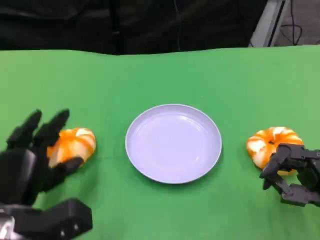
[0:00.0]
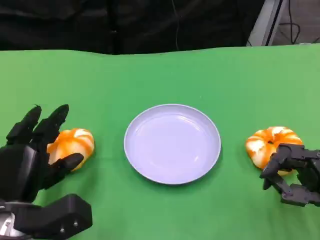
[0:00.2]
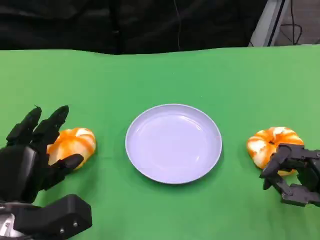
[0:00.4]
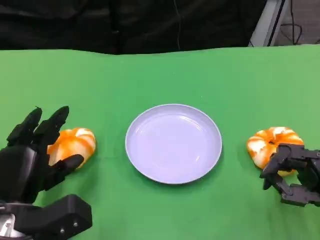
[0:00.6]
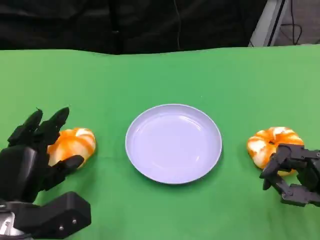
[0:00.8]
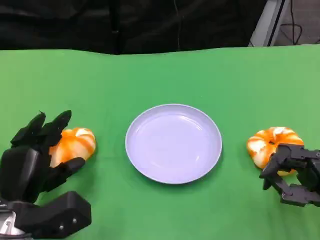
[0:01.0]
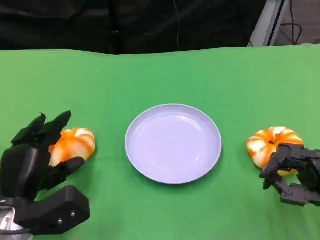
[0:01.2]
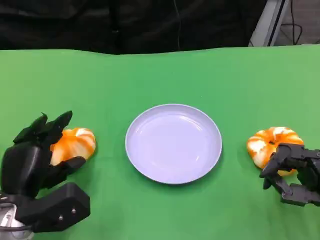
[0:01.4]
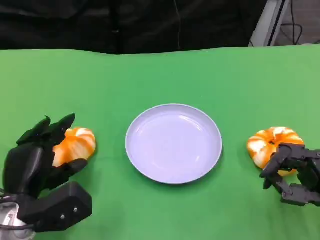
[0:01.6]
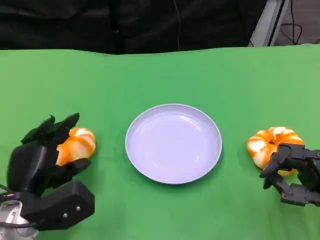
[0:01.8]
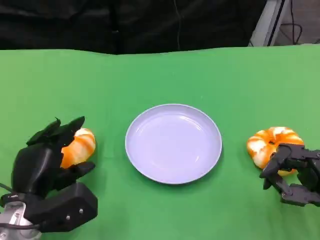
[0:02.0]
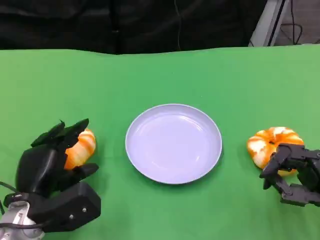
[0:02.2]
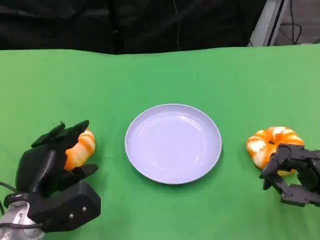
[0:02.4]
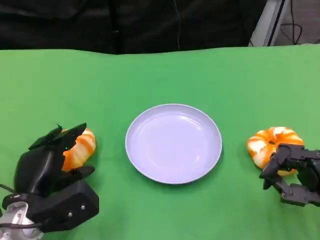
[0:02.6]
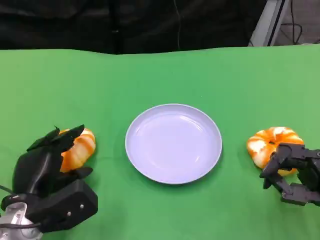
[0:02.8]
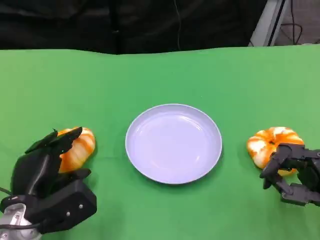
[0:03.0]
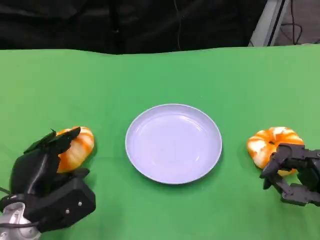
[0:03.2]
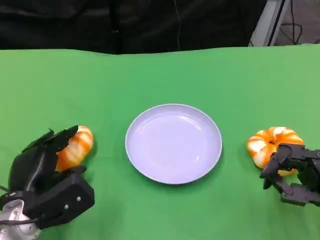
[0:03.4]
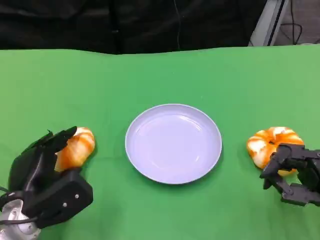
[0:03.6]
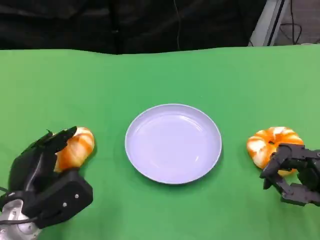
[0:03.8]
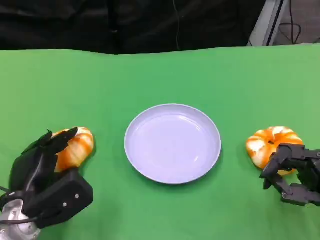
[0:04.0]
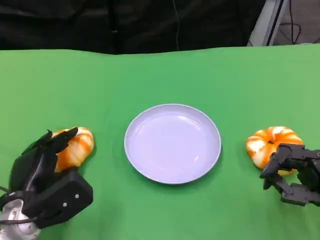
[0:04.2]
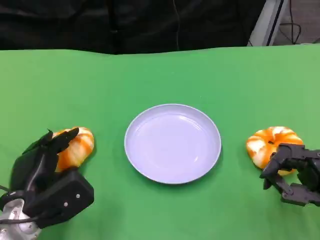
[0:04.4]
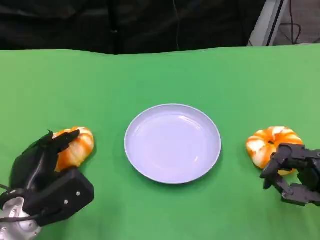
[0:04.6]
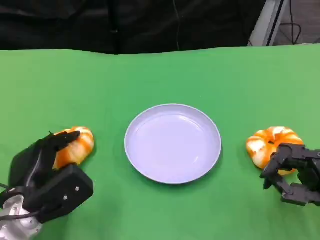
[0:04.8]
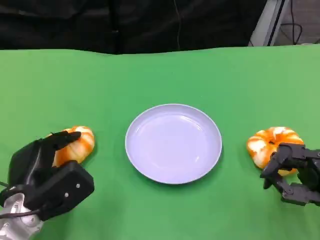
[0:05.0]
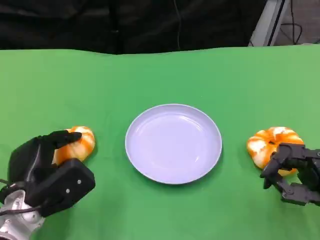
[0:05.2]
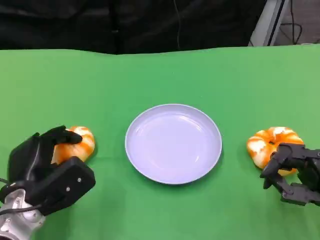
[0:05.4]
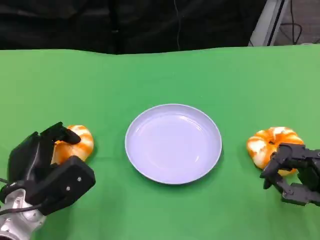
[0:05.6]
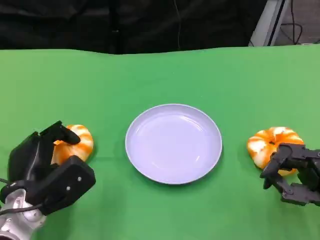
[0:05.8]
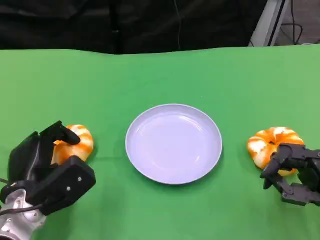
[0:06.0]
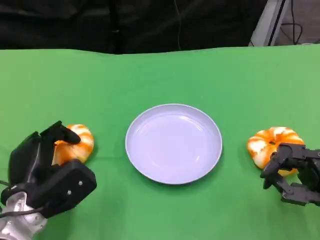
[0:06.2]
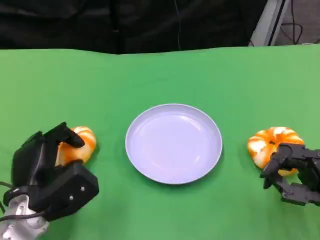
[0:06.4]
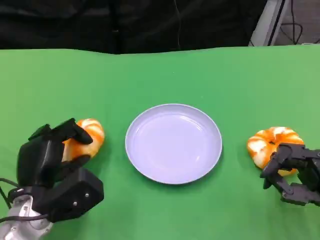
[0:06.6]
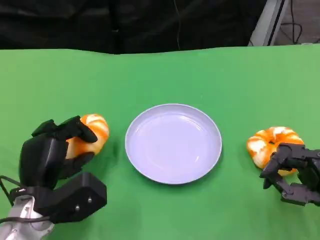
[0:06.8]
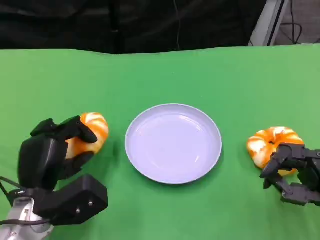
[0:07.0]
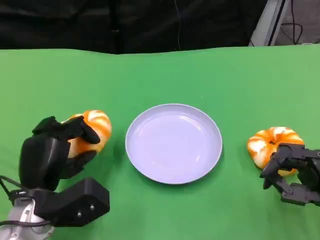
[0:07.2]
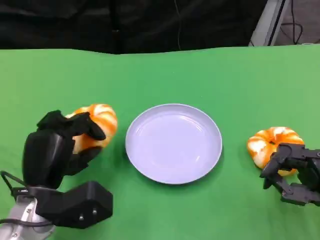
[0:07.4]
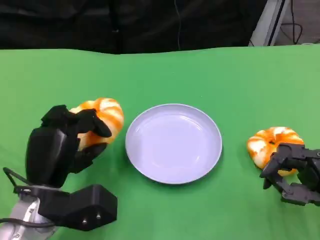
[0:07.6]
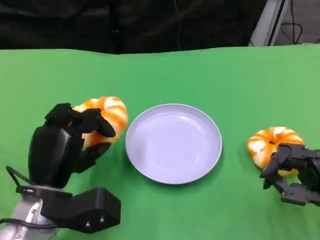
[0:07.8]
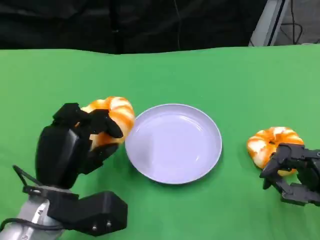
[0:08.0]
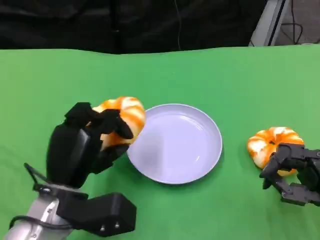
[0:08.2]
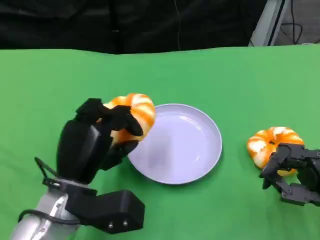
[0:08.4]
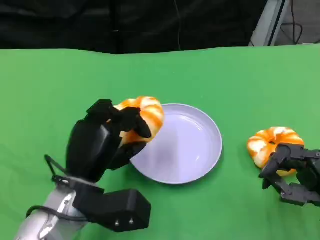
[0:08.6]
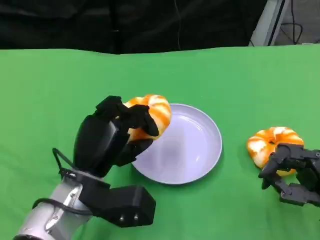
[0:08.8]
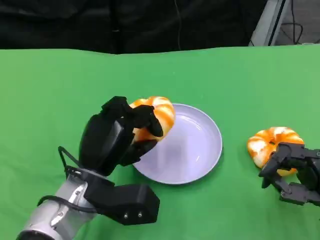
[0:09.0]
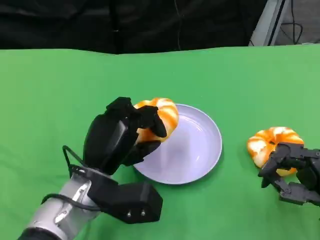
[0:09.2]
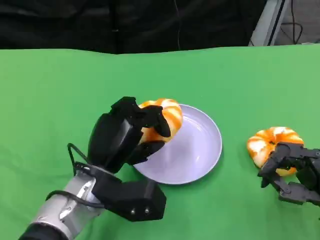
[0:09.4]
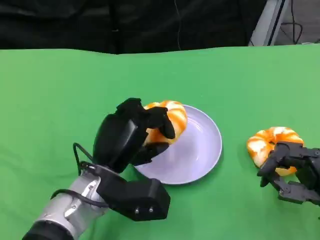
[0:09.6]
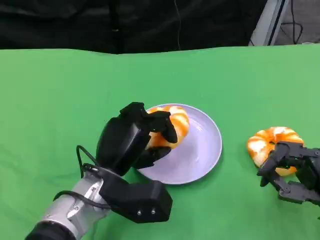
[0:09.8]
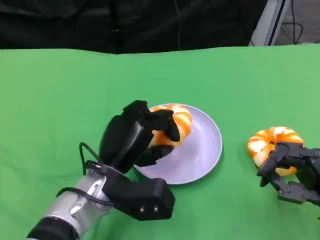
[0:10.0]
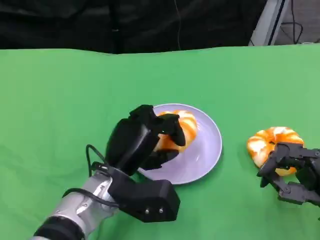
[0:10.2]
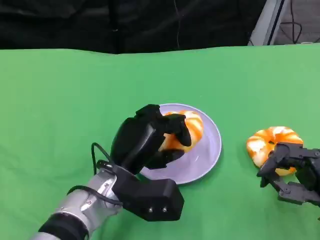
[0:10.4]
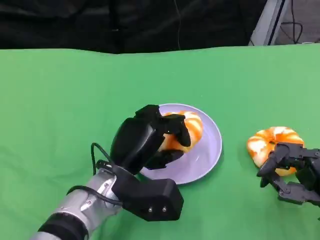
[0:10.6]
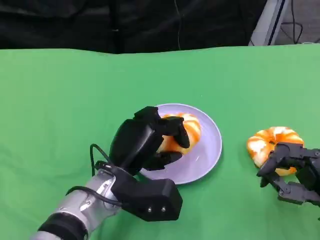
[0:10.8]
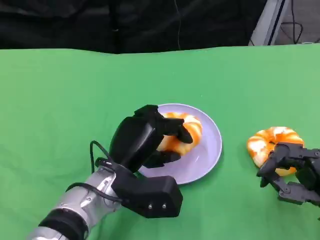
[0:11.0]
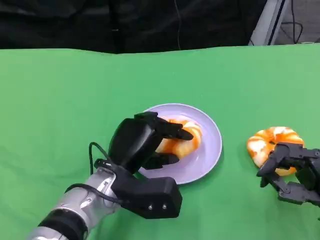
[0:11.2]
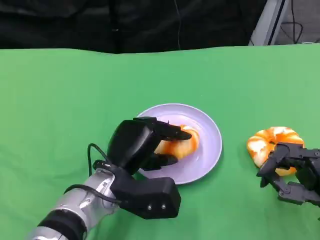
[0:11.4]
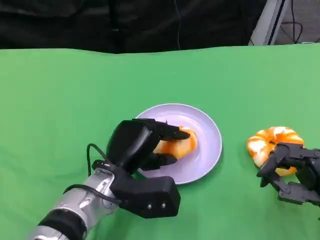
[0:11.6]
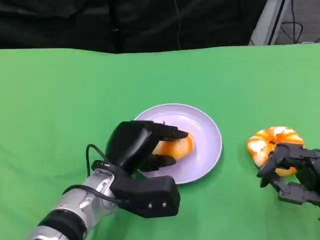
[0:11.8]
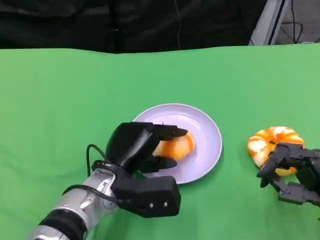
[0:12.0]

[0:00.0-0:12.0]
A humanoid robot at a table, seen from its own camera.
Task of the whole recording: Grasp the bread from the table and place it into the plate.
0:00.0 to 0:03.0: The hands stay close to where they were, moving slightly.
0:03.0 to 0:04.4: The two hands keep their place.
0:04.4 to 0:06.0: The hands move only a little.
0:06.0 to 0:07.6: The left hand shifts by roughly 5 cm.
0:07.6 to 0:09.0: The left hand goes approximately 5 cm to the right.
0:09.0 to 0:12.0: The hands make only small movements.

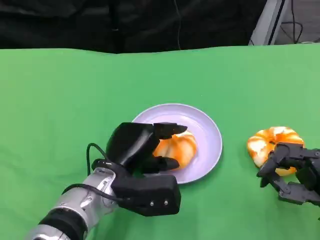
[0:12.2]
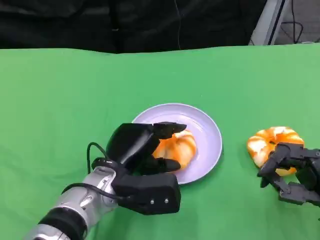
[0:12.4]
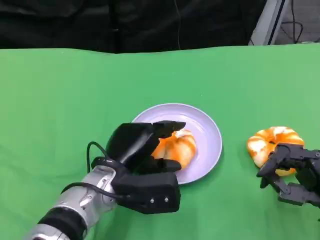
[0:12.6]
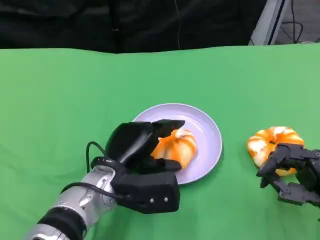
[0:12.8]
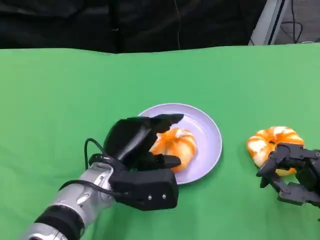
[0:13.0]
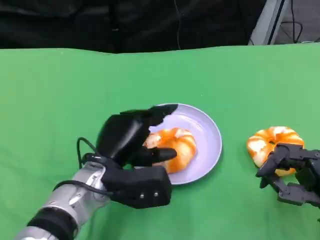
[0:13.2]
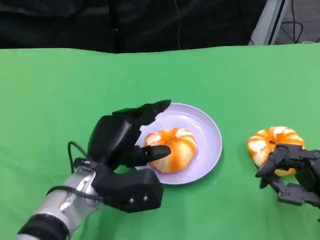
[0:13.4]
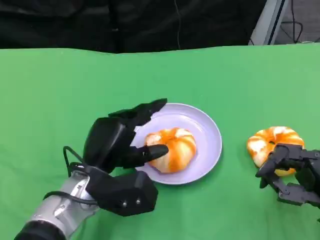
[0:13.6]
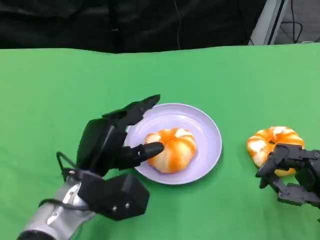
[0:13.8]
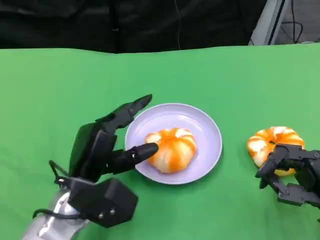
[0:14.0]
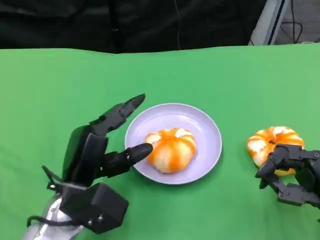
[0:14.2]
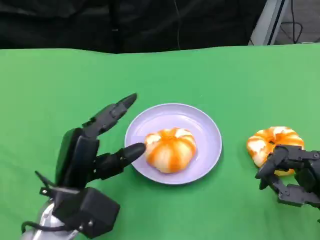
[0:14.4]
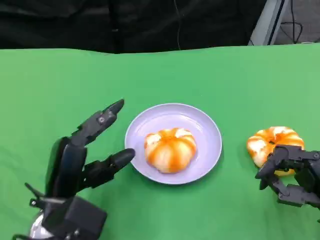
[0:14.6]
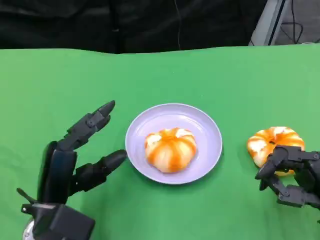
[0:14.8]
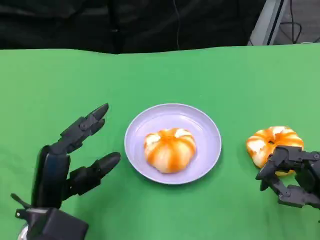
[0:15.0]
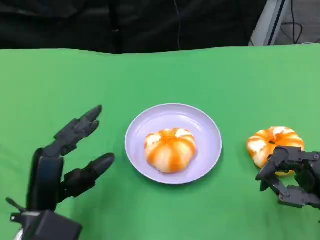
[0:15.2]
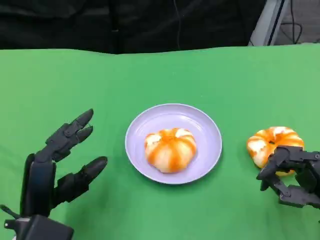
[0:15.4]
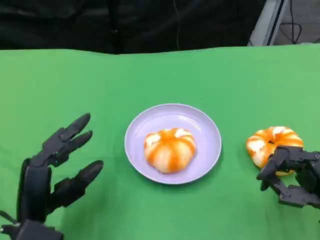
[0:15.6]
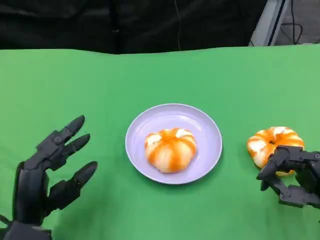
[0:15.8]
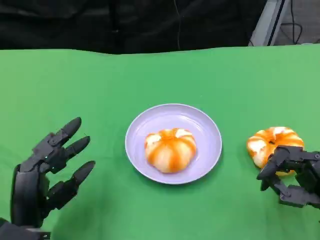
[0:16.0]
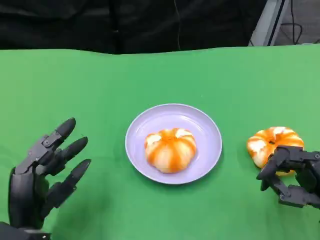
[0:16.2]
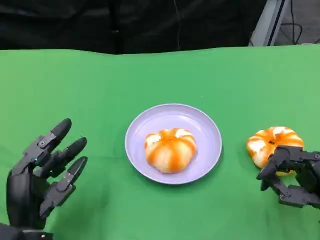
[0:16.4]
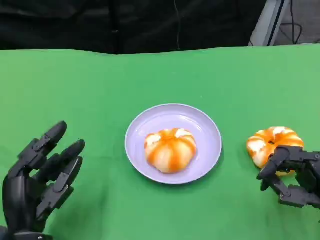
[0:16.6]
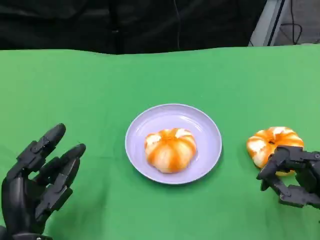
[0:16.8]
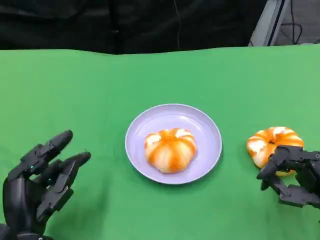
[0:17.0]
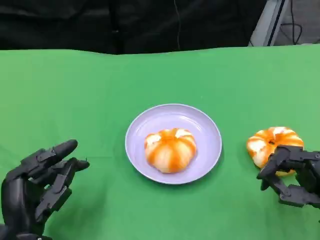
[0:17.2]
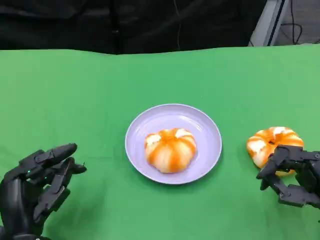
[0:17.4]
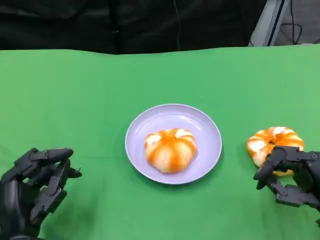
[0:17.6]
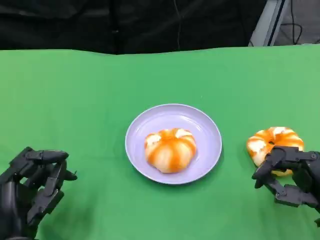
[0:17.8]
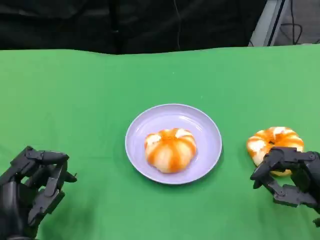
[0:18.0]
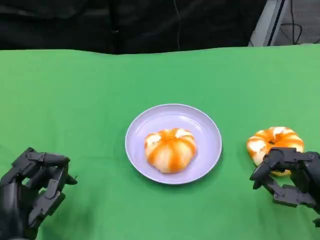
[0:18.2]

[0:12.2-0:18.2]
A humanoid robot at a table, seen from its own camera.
Task of the whole recording: Grasp the bread from the table and place it into the plate.
0:13.8 to 0:15.2: The left hand moves to the left and backward, about 10 cm.
0:16.6 to 0:18.2: Neither hand changes place.

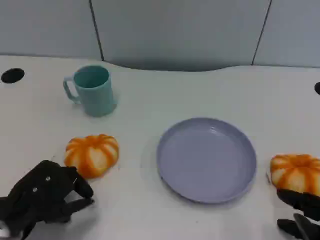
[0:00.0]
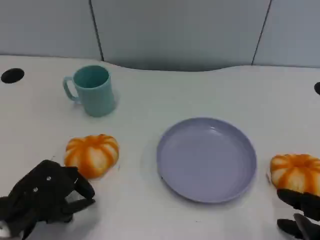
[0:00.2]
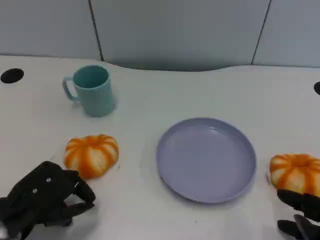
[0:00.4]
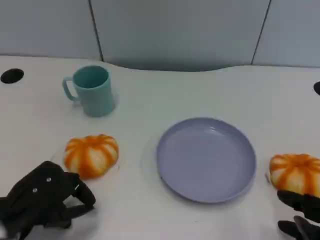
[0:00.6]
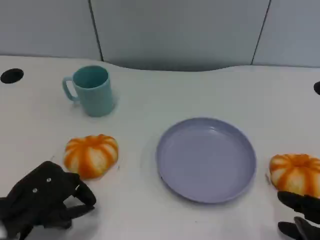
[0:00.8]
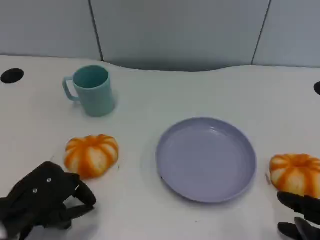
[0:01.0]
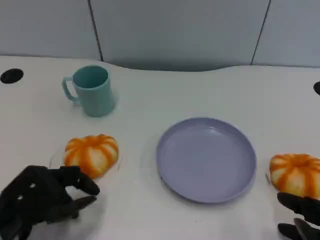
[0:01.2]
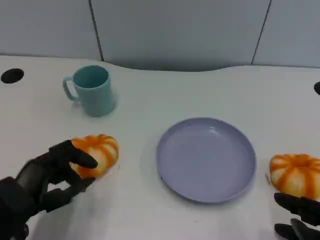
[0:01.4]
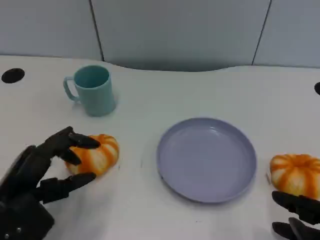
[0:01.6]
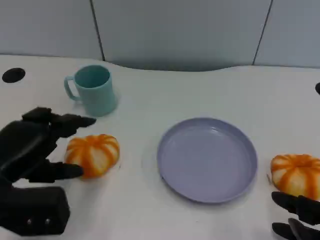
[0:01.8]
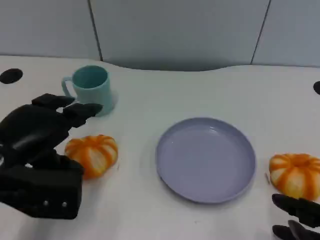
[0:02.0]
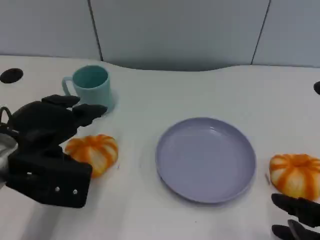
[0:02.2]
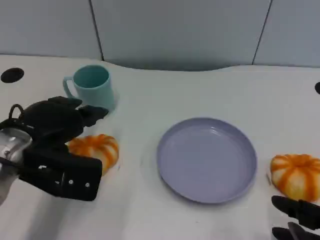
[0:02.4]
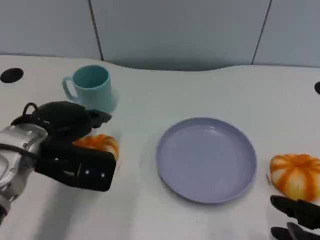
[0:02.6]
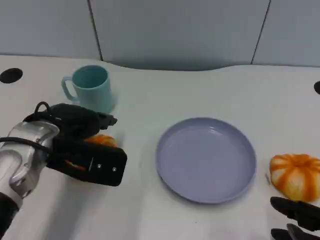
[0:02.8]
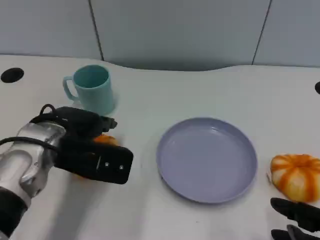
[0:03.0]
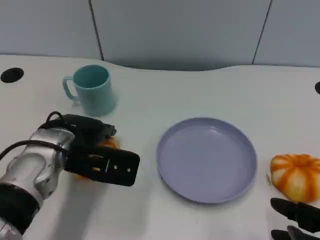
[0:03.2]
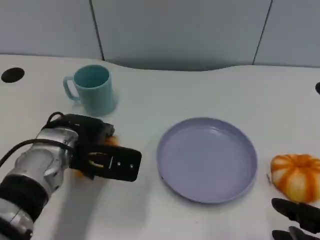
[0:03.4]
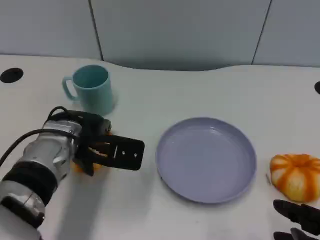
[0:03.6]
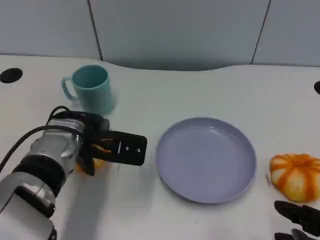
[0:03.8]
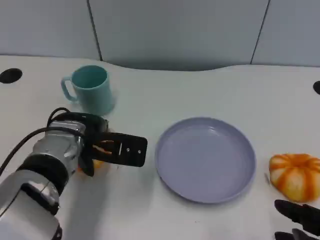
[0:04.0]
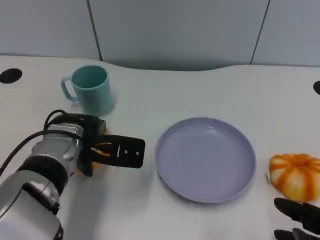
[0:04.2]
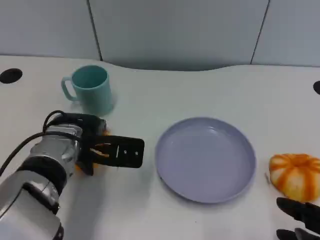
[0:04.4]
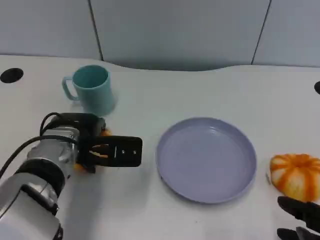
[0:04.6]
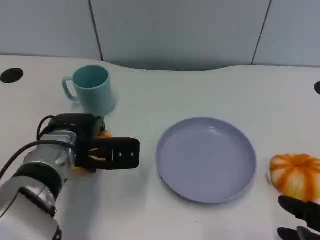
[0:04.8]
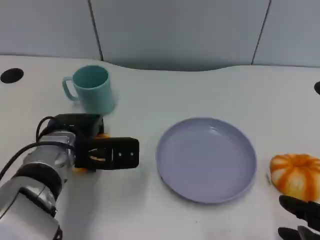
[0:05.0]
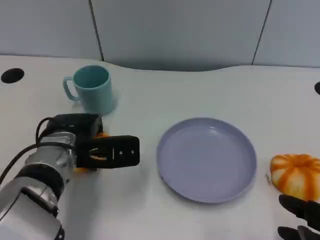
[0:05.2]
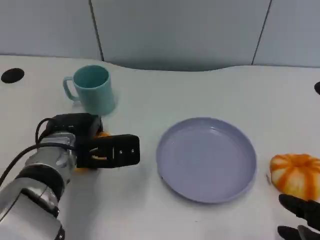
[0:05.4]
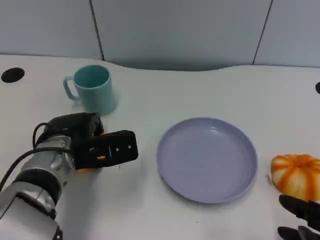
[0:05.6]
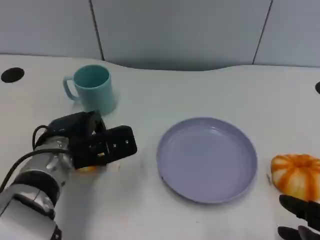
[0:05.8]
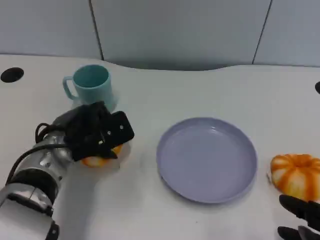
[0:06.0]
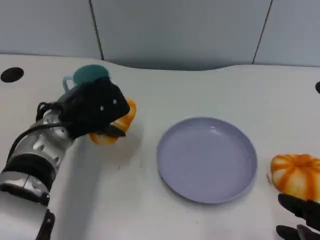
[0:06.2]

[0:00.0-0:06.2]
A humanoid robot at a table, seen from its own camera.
Task of the whole recording: Grasp the bread from the table and place it into the plate.
0:01.6 to 0:03.2: The left hand heads forward and to the right, covering roughly 15 cm.
0:03.2 to 0:04.6: There are only small adjustments of the hands.
